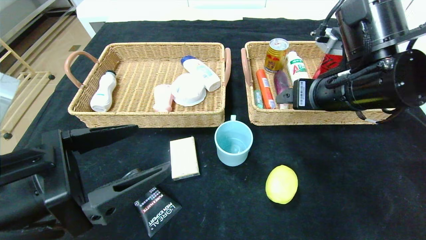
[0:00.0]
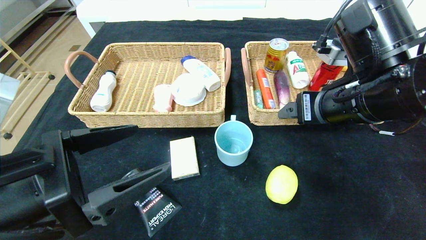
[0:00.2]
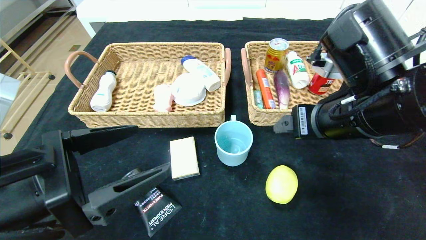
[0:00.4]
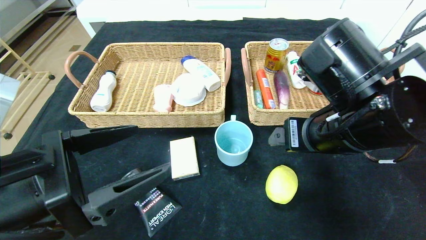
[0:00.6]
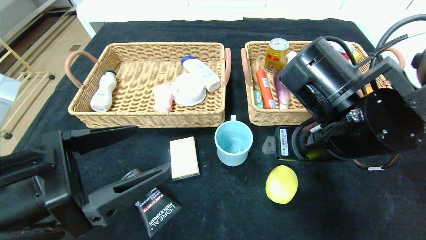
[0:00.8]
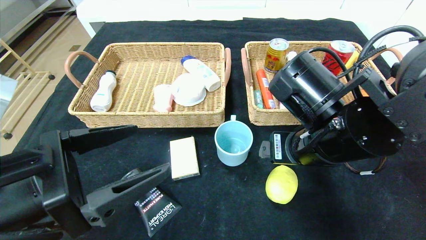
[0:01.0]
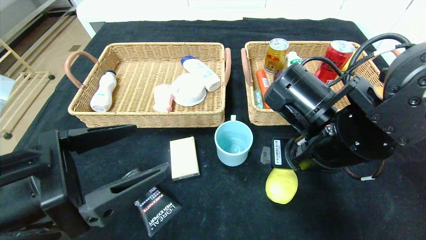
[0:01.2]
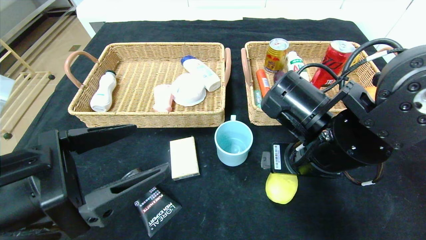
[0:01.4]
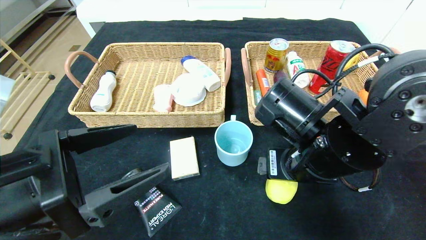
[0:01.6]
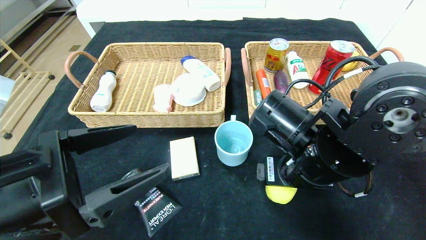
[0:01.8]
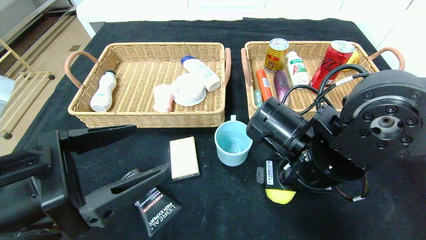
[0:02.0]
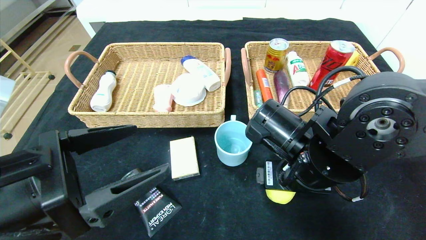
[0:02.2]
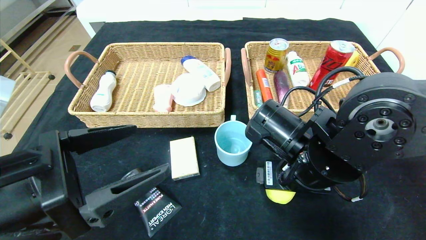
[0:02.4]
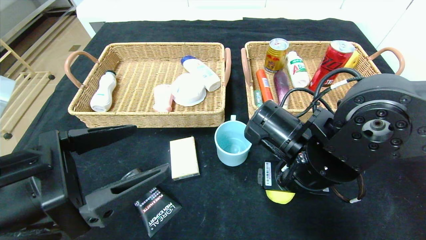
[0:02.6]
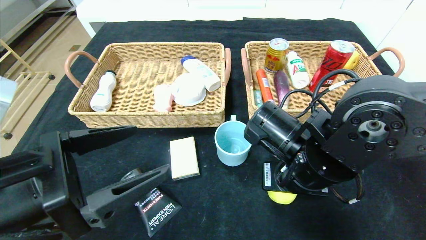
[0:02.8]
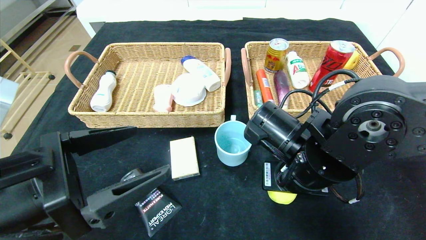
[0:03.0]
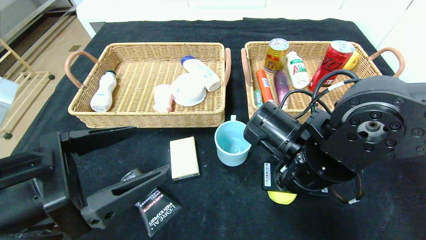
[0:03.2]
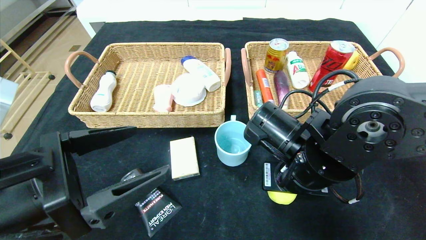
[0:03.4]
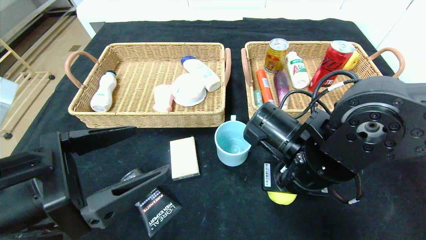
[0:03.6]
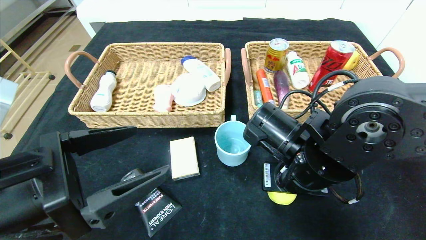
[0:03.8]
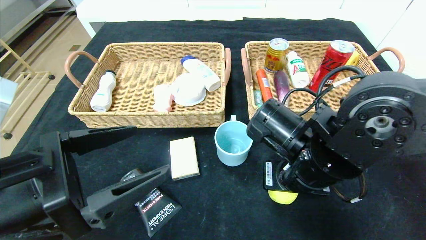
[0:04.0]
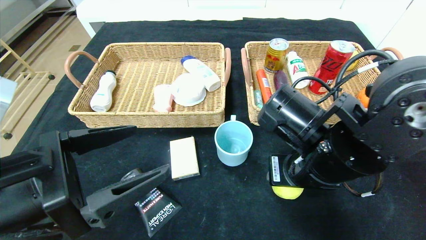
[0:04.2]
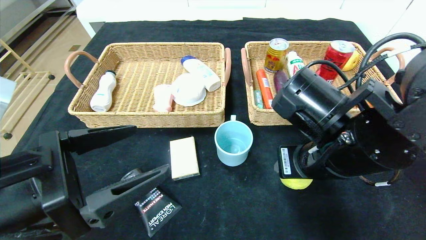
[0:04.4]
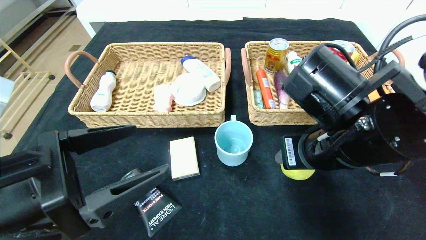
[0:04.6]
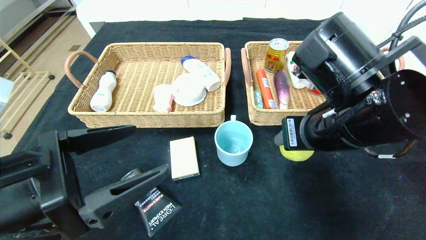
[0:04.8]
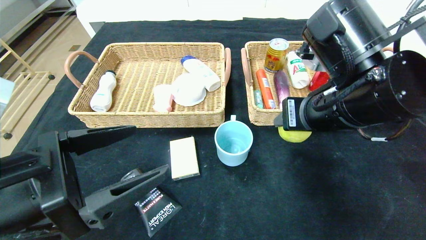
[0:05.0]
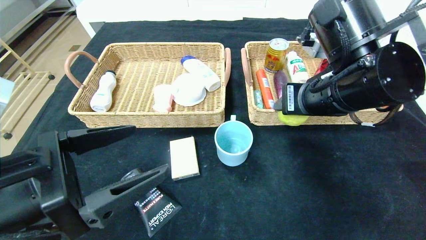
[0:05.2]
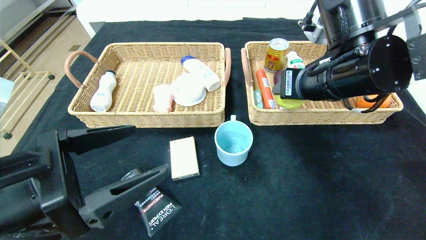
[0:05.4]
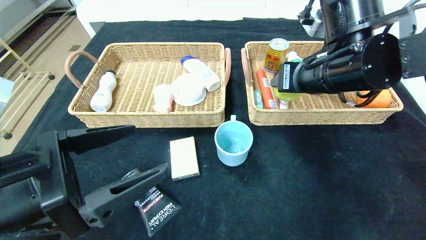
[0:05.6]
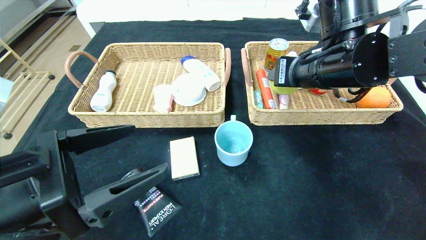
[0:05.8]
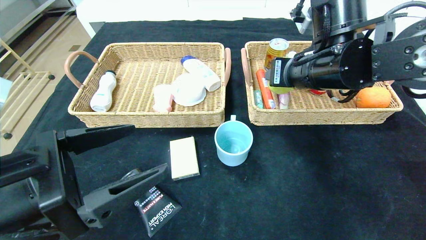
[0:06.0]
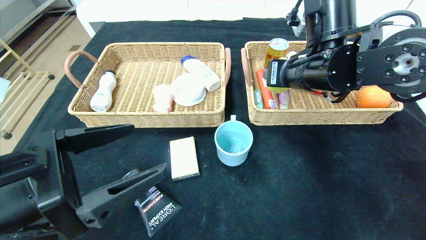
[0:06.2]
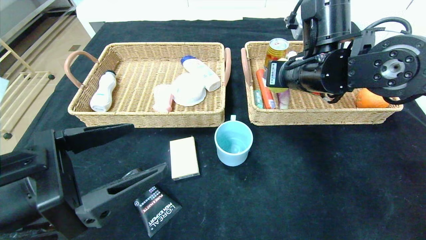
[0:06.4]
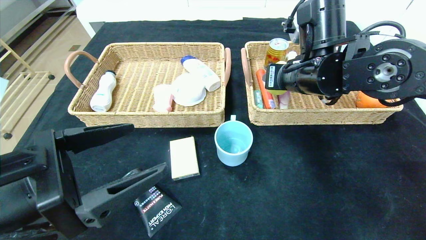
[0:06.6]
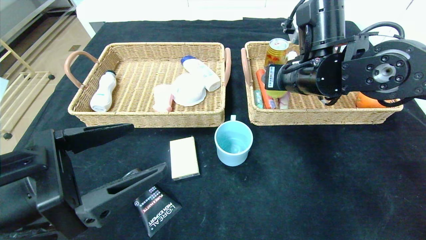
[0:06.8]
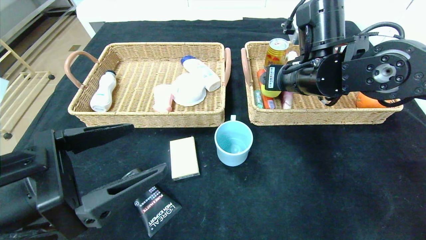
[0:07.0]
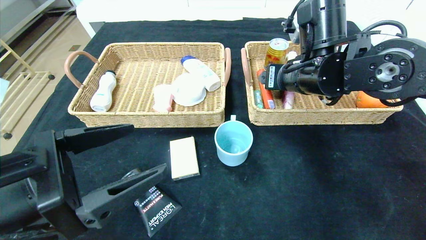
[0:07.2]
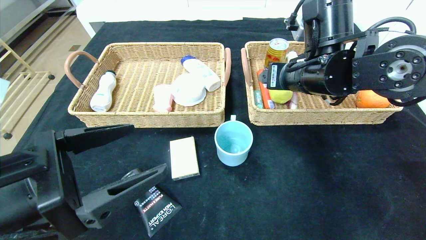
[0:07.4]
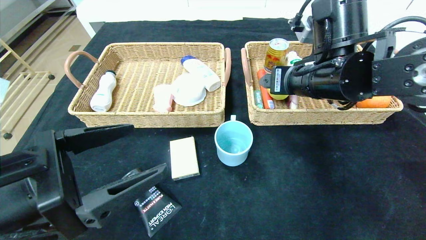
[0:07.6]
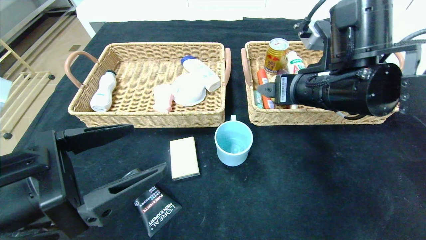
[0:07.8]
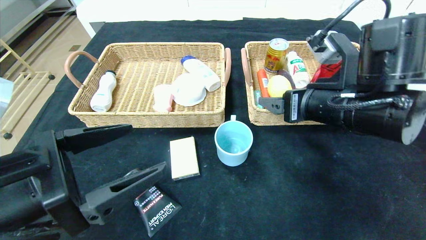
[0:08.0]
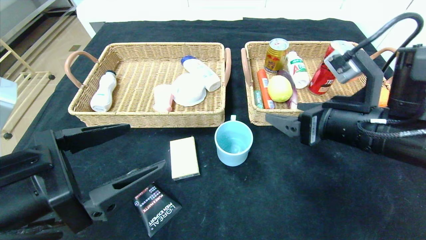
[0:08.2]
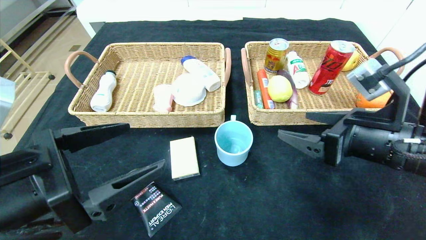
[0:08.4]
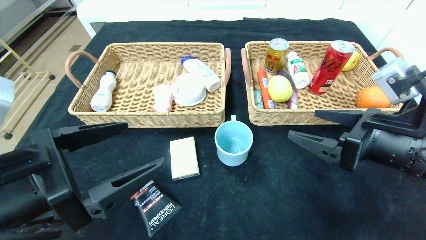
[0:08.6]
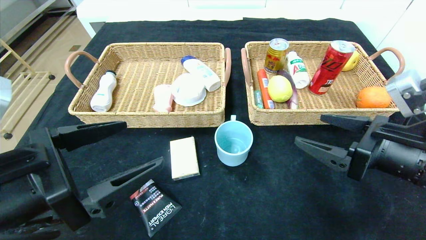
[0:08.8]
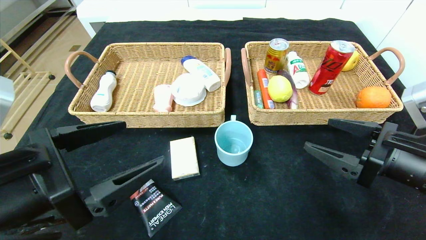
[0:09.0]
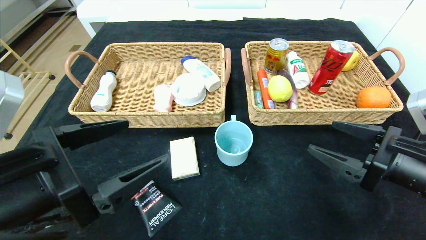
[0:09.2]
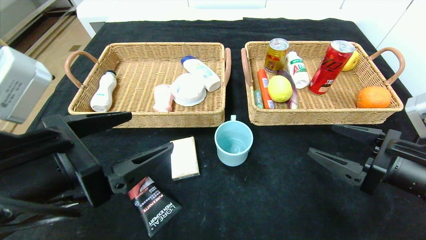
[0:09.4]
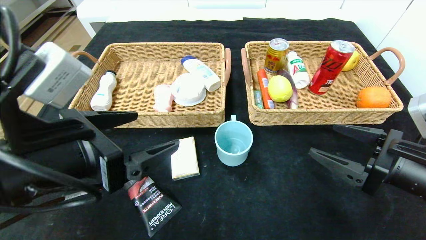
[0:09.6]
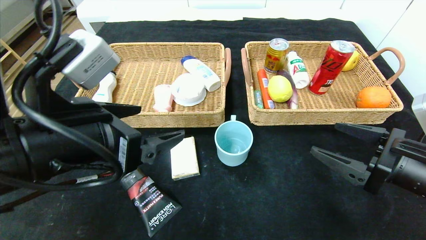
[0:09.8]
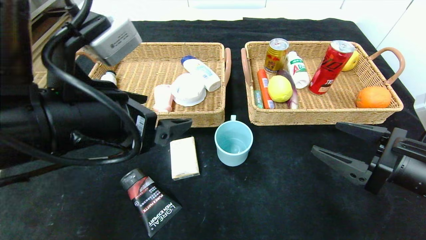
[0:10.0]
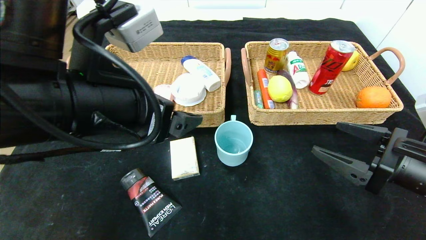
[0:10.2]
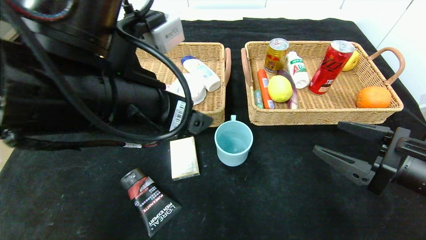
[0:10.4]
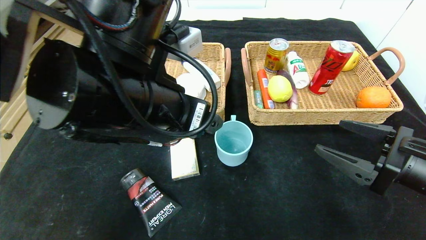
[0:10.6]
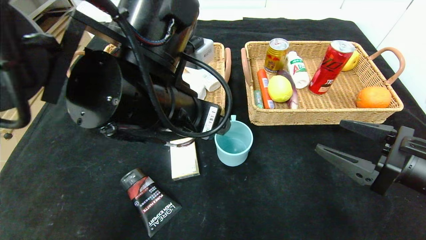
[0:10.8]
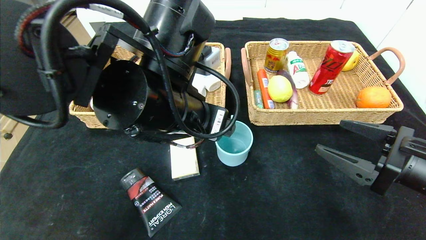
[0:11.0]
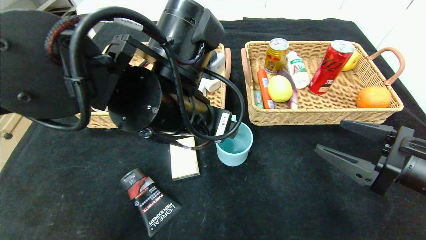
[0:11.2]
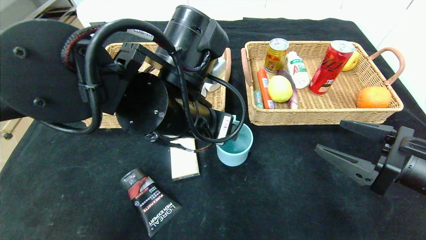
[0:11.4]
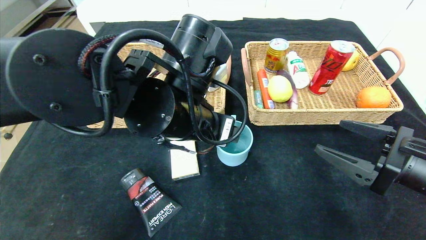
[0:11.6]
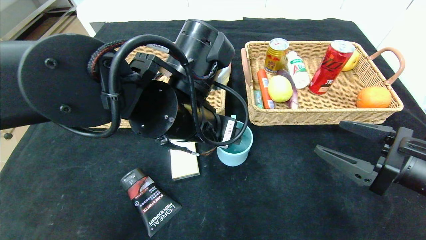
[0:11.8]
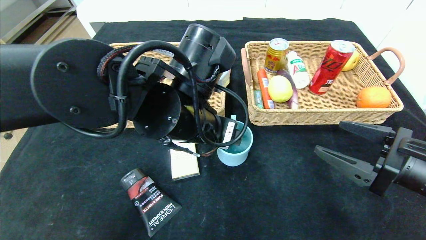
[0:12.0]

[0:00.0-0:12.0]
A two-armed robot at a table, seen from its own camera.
Step, 0:00.0 to 0:07.2: Grasp the lemon and put it in the right basket.
0:00.0 to 0:01.6: The right gripper shifts approximately 10 cm downward and to the left.
0:01.6 to 0:03.0: The right gripper closes up.
0:03.0 to 0:04.4: The right gripper shifts by about 5 cm.
0:04.4 to 0:06.0: The right gripper is displaced forward and upward by approximately 10 cm.
0:06.0 to 0:07.6: The right gripper opens up.
0:07.6 to 0:09.0: The right gripper moves to the right, backward and downward, roughly 20 cm.
0:09.0 to 0:10.4: The left gripper travels to the right, forward and upward by about 15 cm.
0:10.4 to 0:12.0: The left gripper is displaced to the right, forward and downward by about 10 cm.

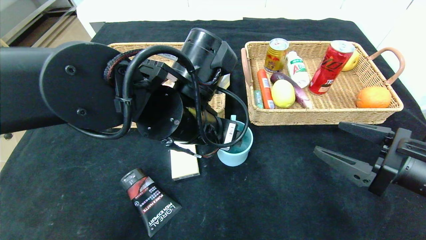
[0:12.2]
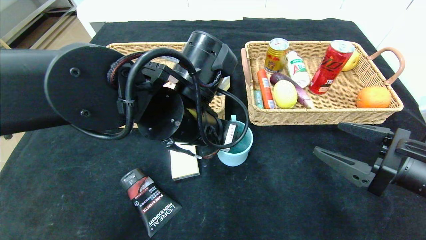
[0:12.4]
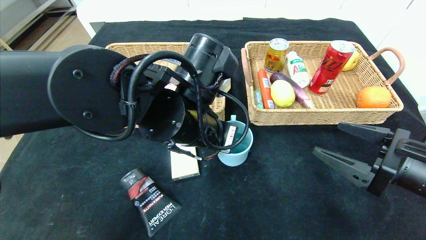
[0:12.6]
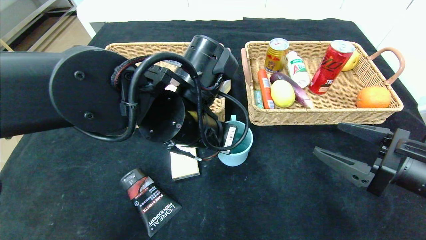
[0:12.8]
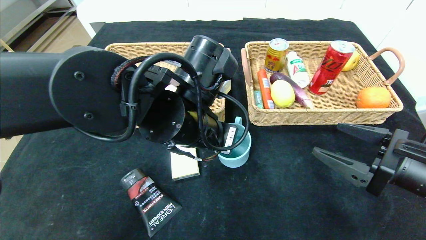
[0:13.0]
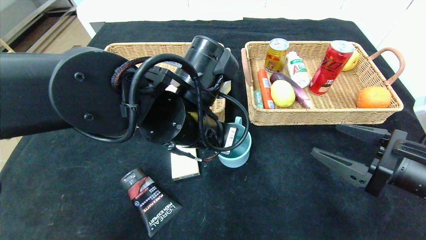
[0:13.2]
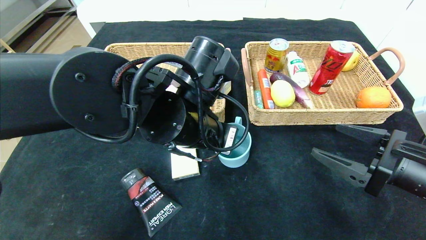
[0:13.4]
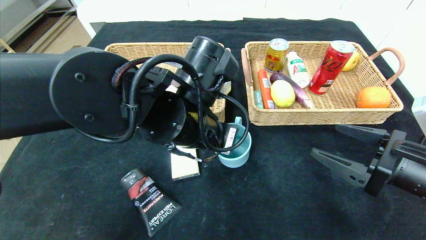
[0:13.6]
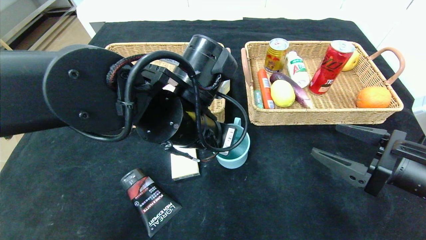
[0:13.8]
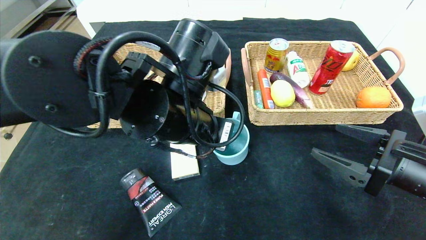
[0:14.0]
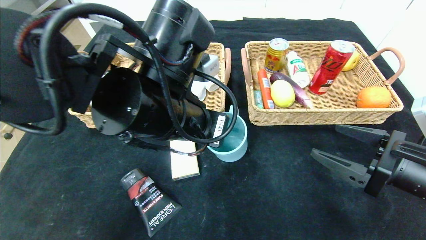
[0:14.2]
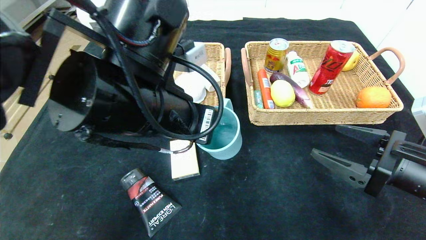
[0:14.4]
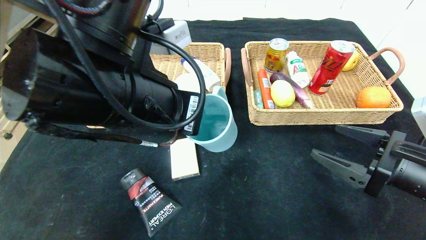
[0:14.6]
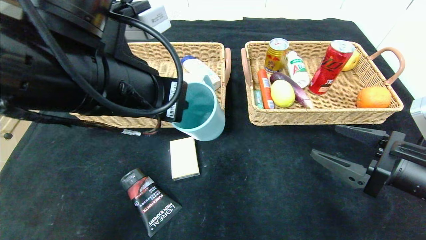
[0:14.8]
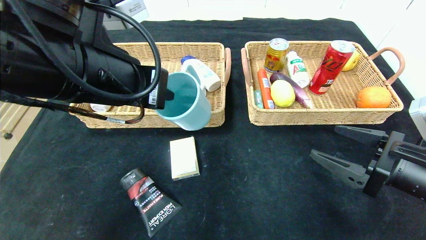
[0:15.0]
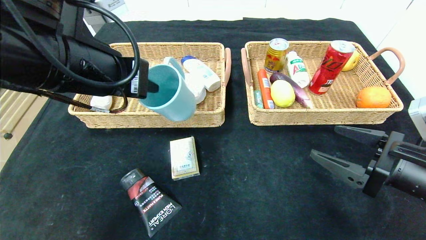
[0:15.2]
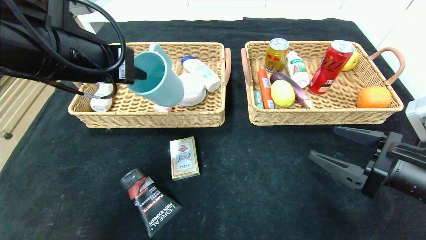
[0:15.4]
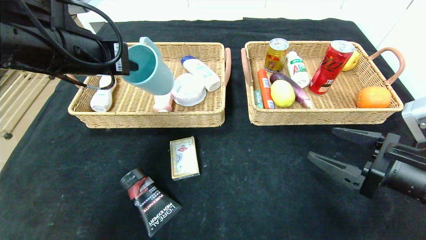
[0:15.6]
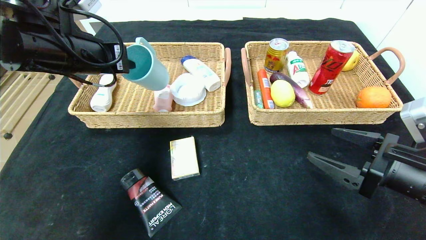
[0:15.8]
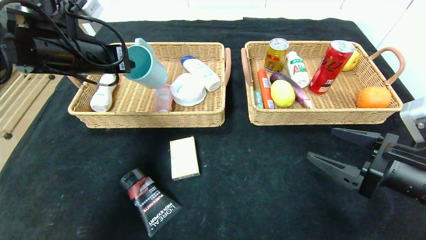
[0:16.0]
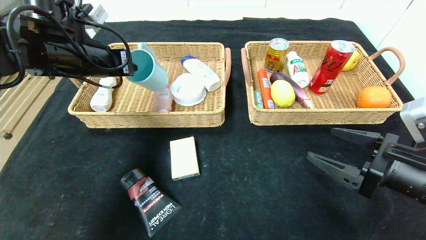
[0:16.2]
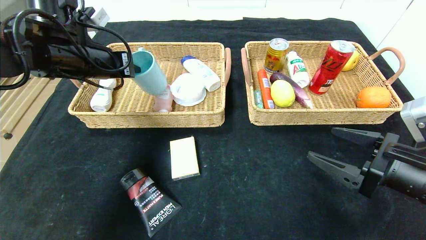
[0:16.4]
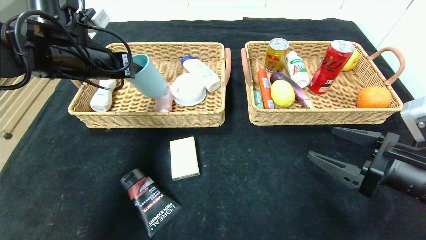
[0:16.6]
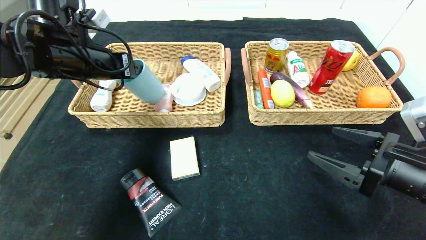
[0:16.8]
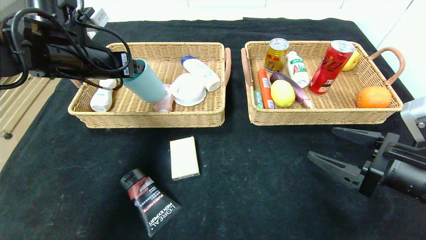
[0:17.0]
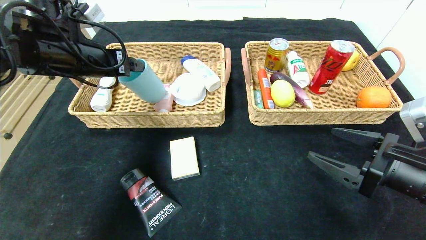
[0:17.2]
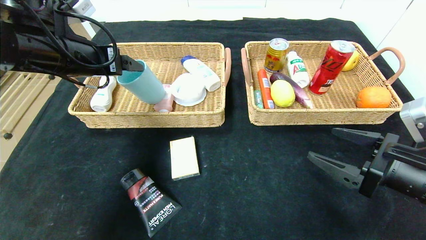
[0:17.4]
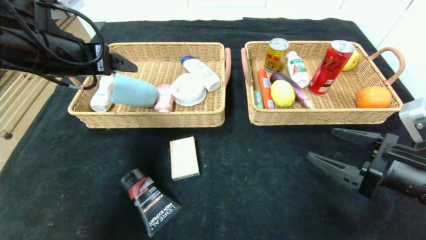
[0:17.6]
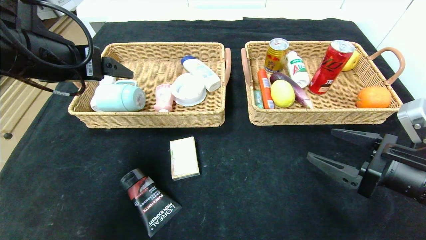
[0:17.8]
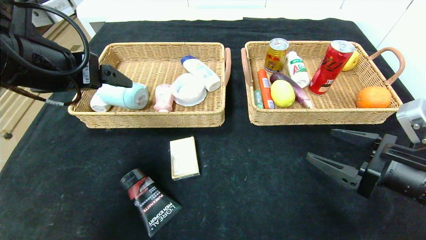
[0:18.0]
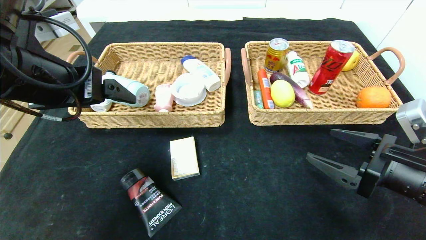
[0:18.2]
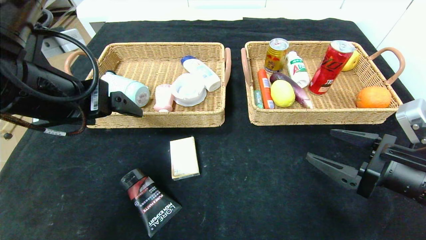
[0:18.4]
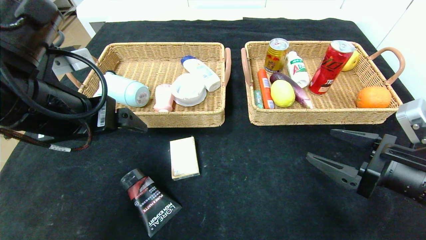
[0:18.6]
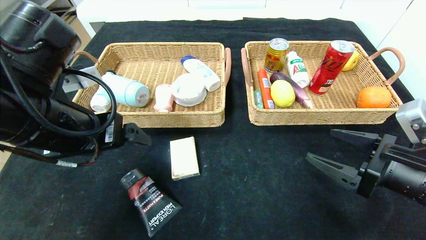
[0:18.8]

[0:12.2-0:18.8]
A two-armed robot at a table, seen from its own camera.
Step, 0:12.2 to 0:17.0: Grasp the blue cup and put it in the left basket.
0:12.2 to 0:13.8: The left gripper closes its fingers.
0:13.8 to 0:15.4: The left gripper travels to the left and upward by some 15 cm.
0:15.4 to 0:17.2: The left gripper goes some 10 cm forward and to the left, and opens its fingers.
0:17.2 to 0:18.8: The left gripper is displaced backward by some 15 cm.
